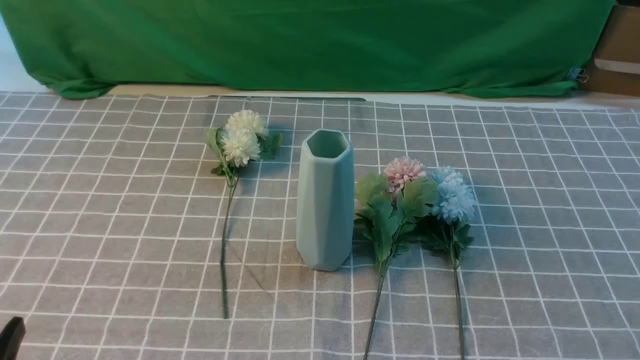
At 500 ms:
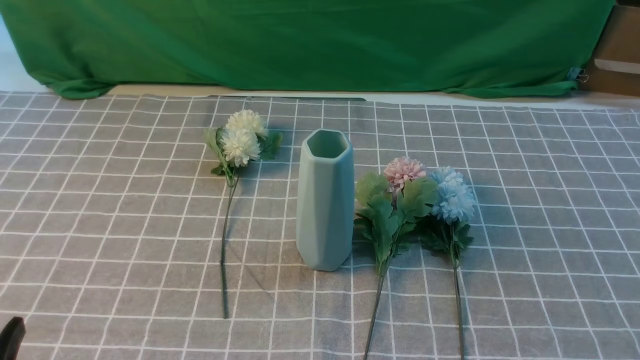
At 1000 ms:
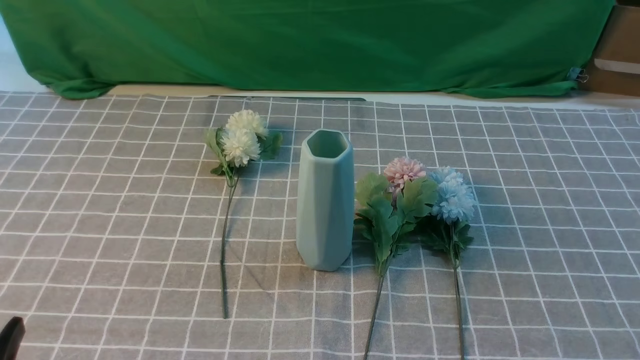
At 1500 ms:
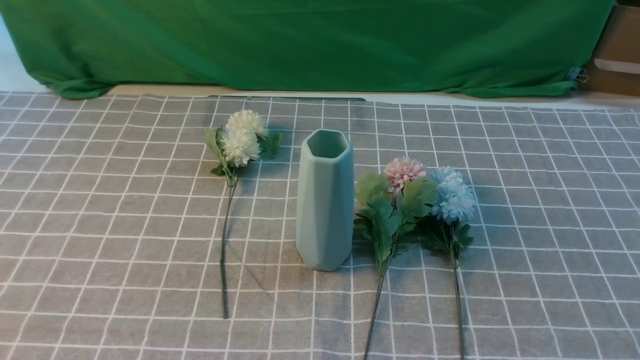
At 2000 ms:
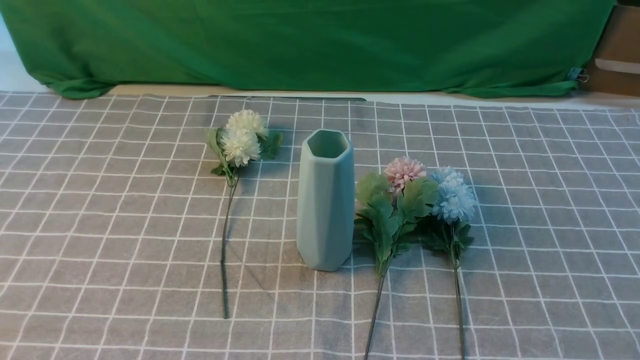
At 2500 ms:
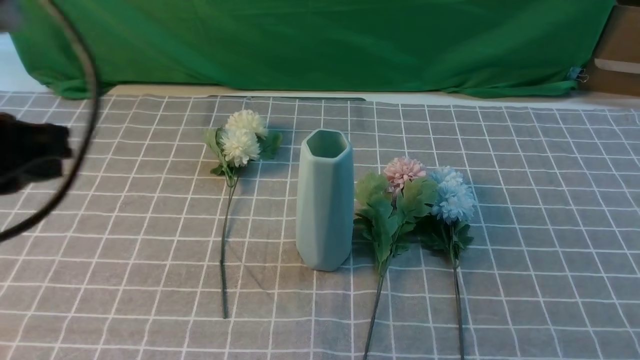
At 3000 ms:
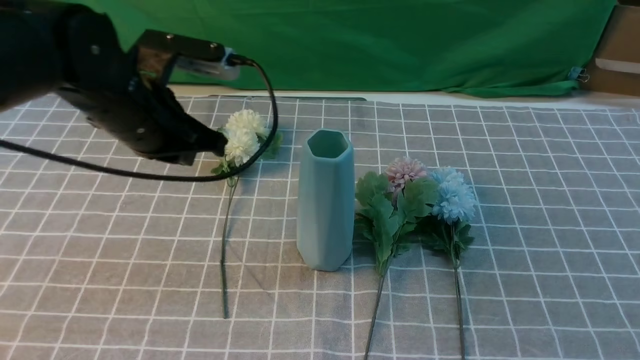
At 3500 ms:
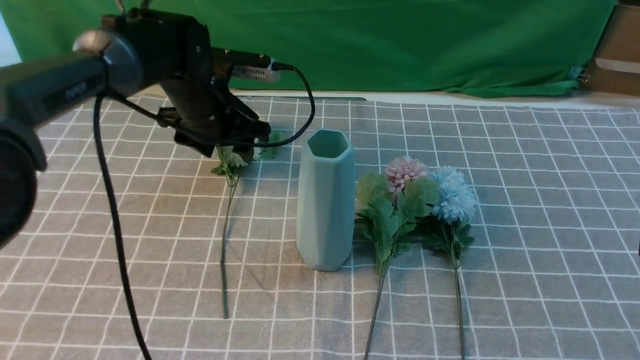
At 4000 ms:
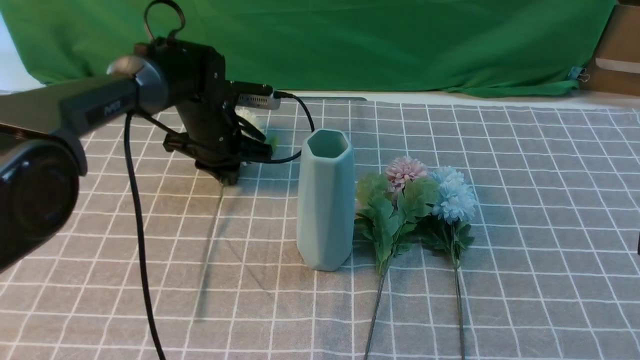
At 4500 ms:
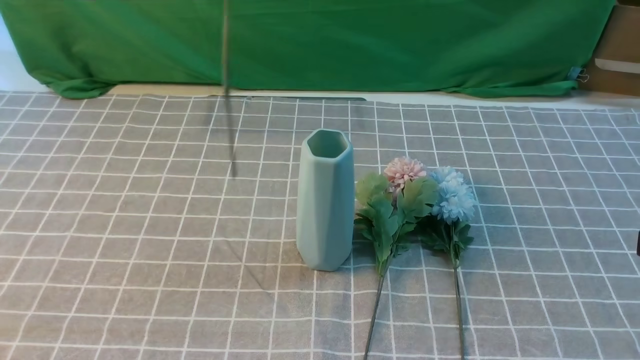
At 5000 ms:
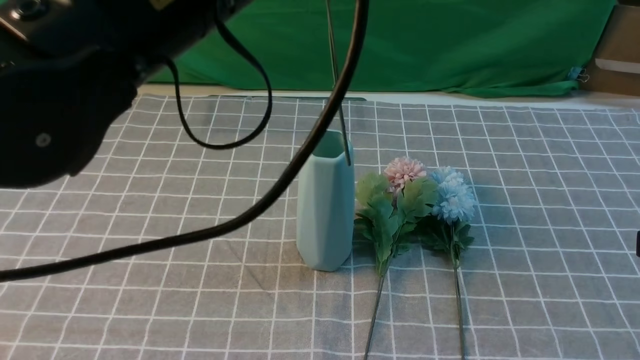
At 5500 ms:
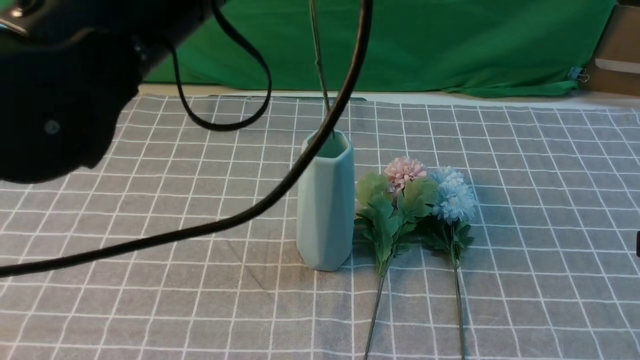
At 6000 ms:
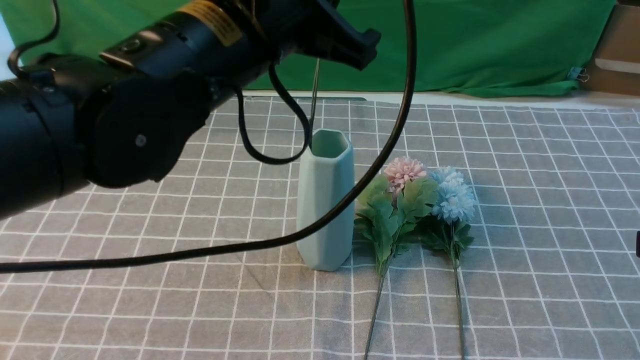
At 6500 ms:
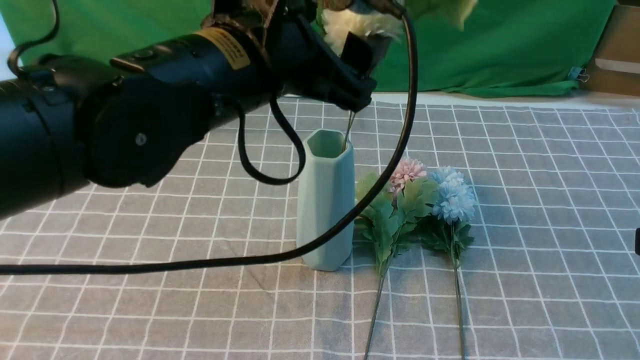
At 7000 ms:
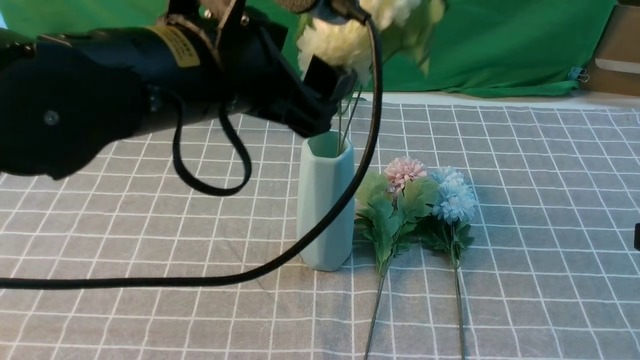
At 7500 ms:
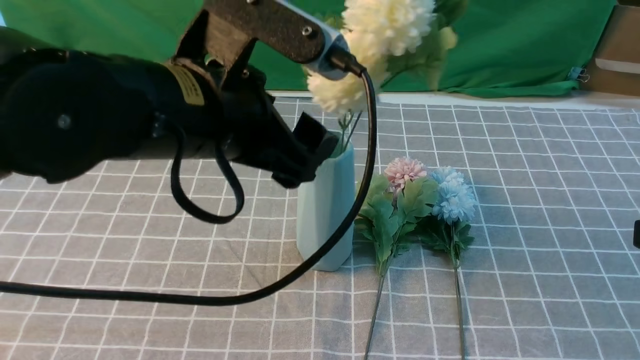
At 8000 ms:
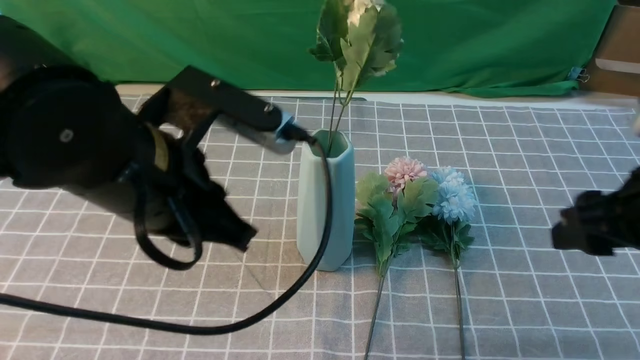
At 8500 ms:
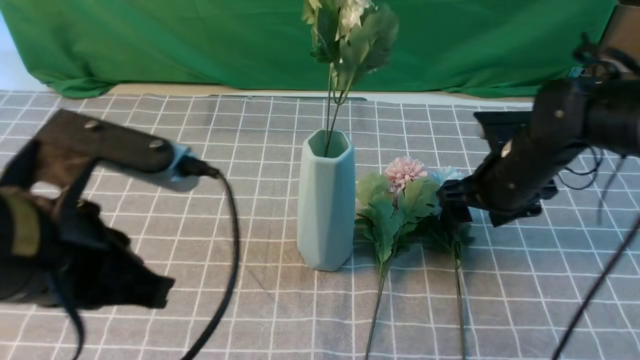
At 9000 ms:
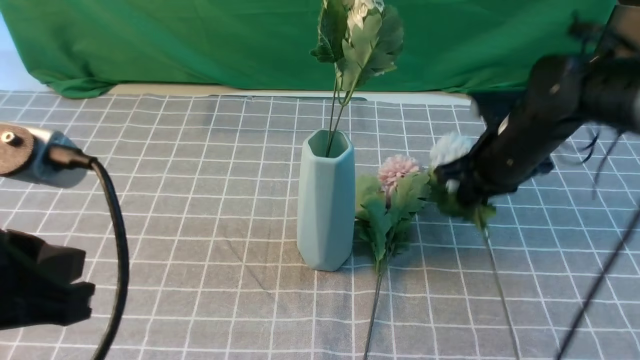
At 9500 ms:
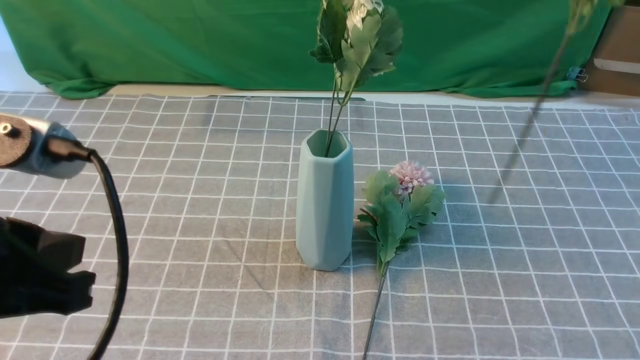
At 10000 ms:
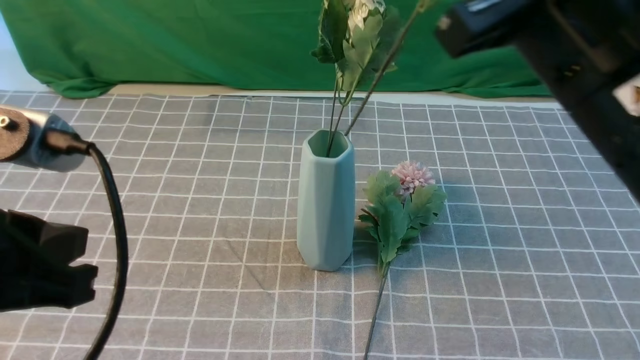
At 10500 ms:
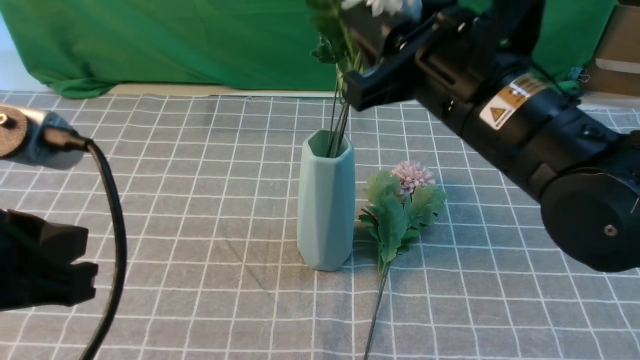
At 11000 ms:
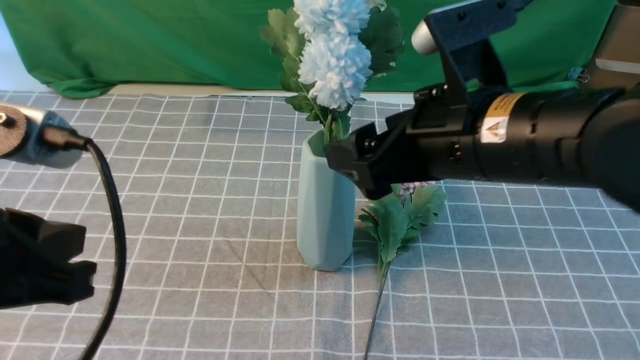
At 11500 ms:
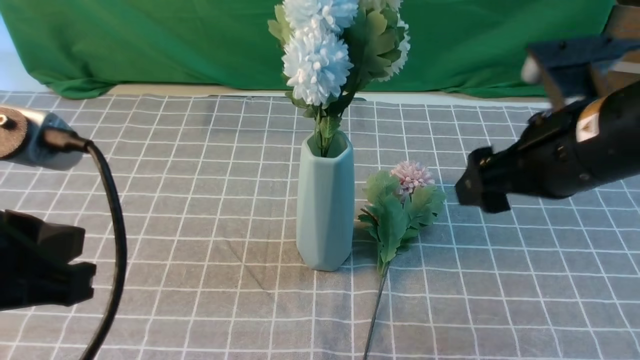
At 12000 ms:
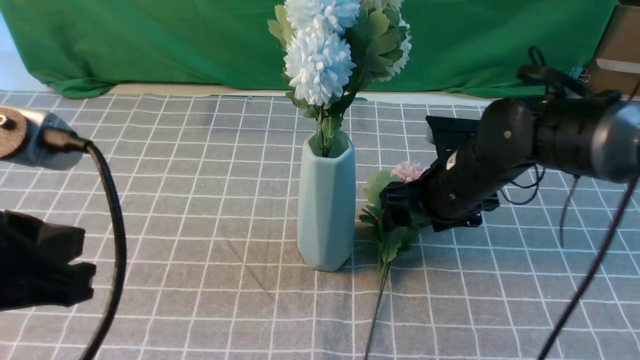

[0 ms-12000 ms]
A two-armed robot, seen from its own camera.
Task of the whole recording: insert the flowers into the vase on the table with the grey tablecloth.
Step, 0 ms to 3500 ms: use the left arm to grab a bunch of fresh flowers.
Step, 4500 ms to 7500 ms: use the left arm to insert the flowers into the vase.
Step, 8000 ms to 8500 ms: use the right arm to grab a bunch of fresh flowers.
Step, 9000 ms to 11000 ms: use the right arm to insert the flowers into the vase.
2000 ms to 4000 ms: The left gripper heads forward, covering some 40 cm, and opens, then closes once more; the right gripper moves upward and forward, approximately 15 cm.
4000 ms to 6000 ms: The left gripper goes approximately 25 cm backward and upward.
6000 ms to 8000 ms: The right gripper shifts approximately 10 cm forward, and opens its fingers. The left gripper goes roughly 10 cm downward, backward and to the left, and opens, then closes once more.
8000 ms to 10000 ms: The right gripper goes up and down, roughly 25 cm each way, reversing 2 times, and closes up. The left gripper travels backward and to the left by approximately 15 cm.
10000 ms to 12000 ms: The right gripper is displaced downward and forward by some 25 cm, and opens its fingers.

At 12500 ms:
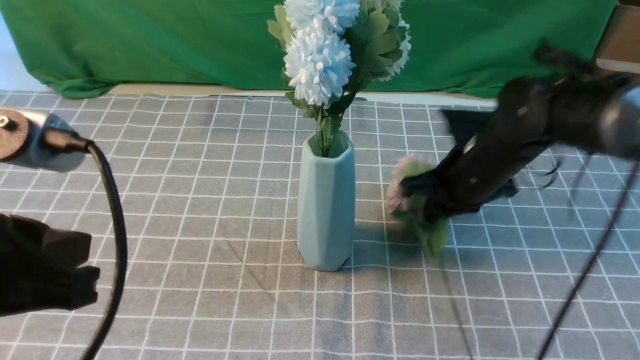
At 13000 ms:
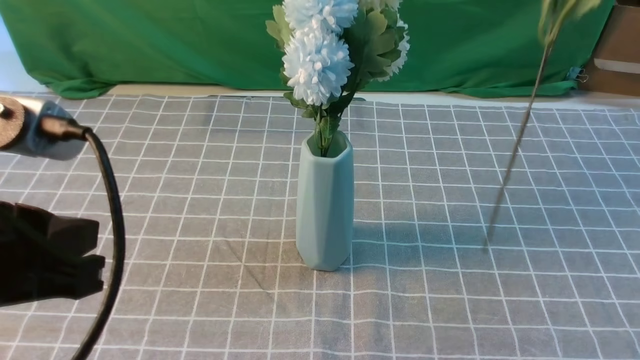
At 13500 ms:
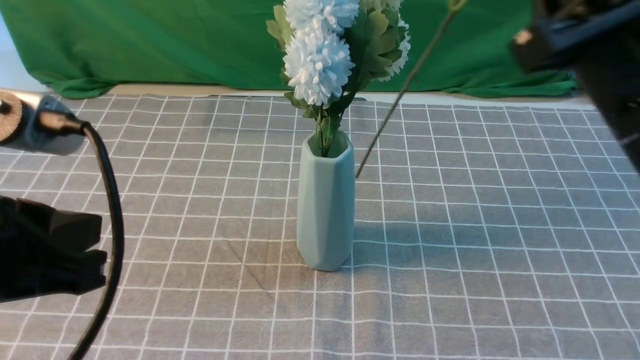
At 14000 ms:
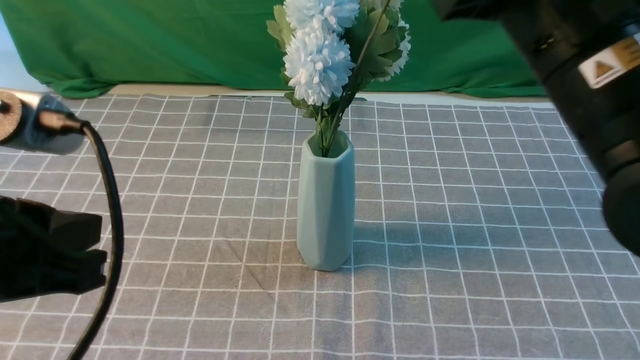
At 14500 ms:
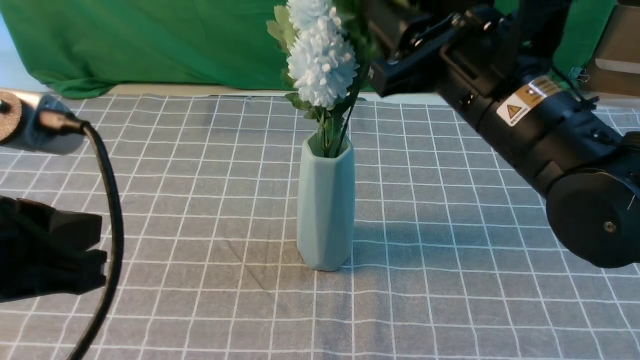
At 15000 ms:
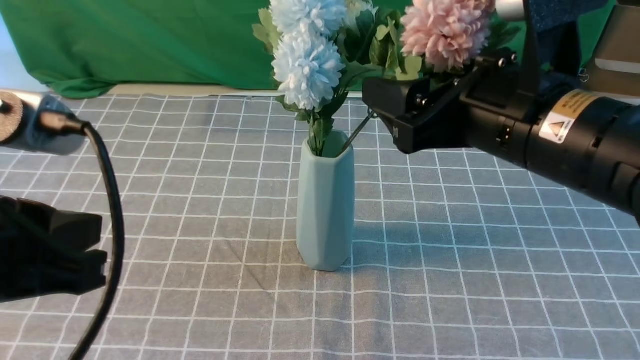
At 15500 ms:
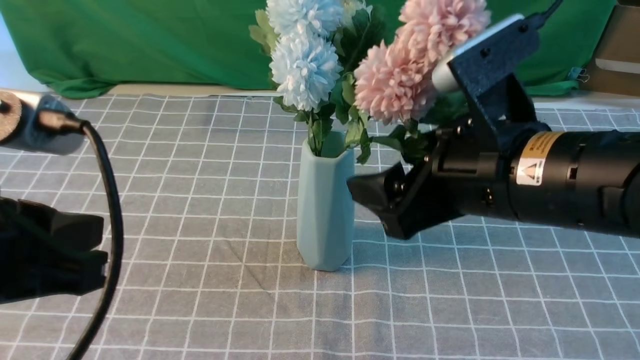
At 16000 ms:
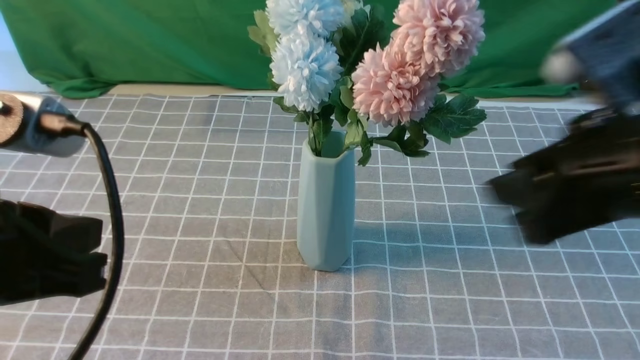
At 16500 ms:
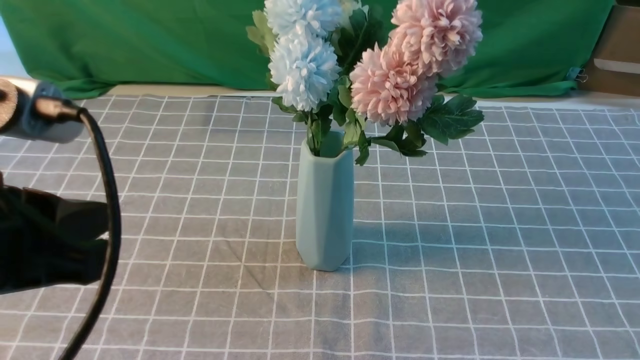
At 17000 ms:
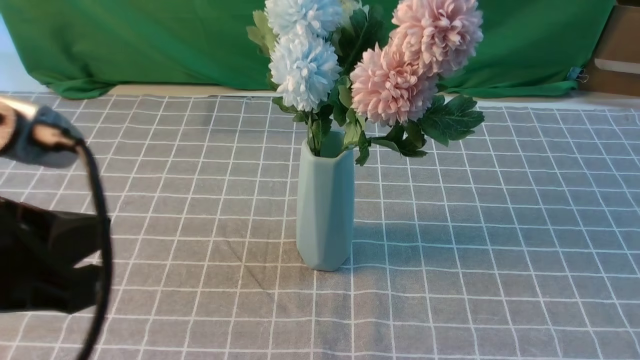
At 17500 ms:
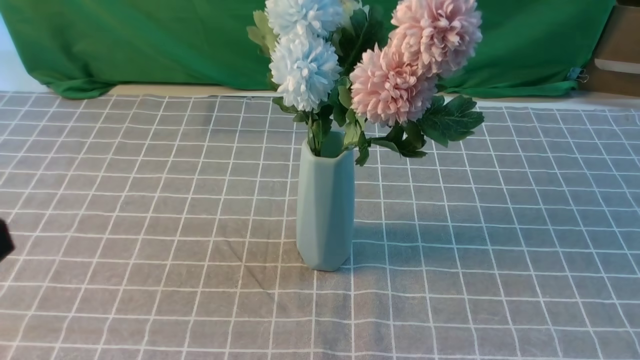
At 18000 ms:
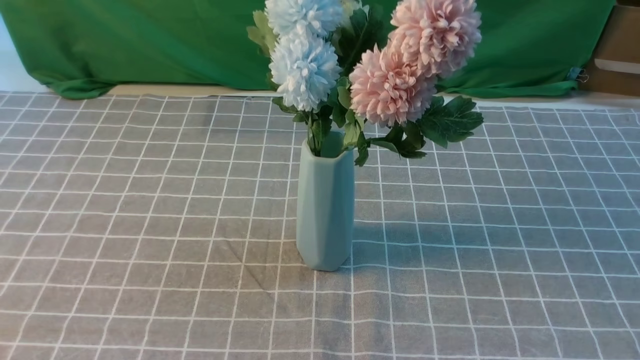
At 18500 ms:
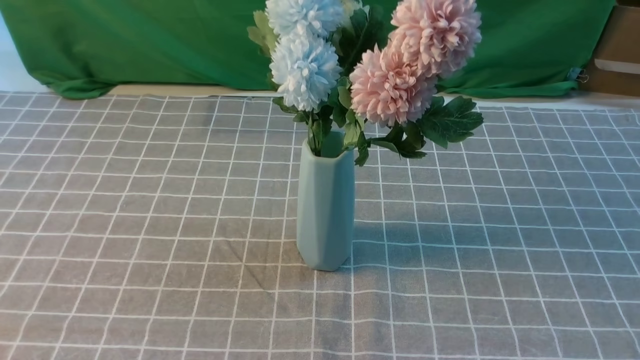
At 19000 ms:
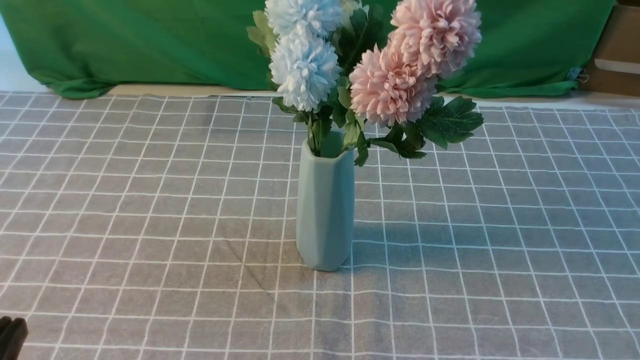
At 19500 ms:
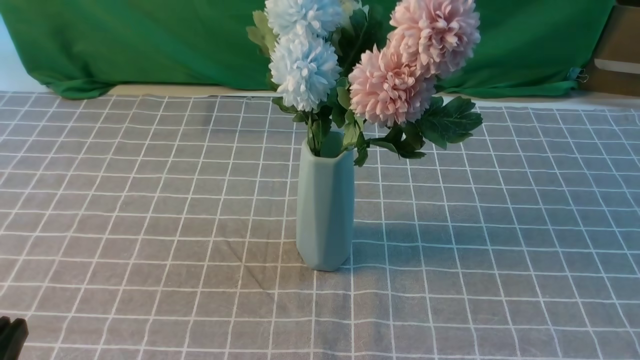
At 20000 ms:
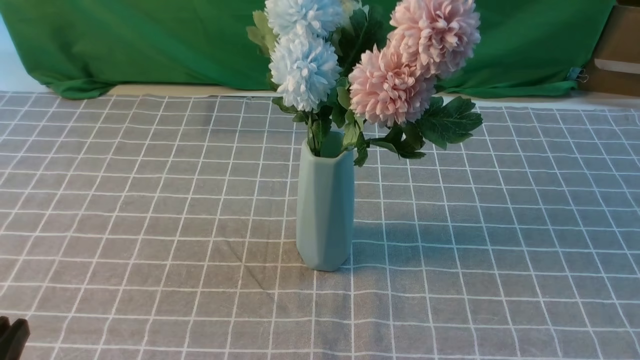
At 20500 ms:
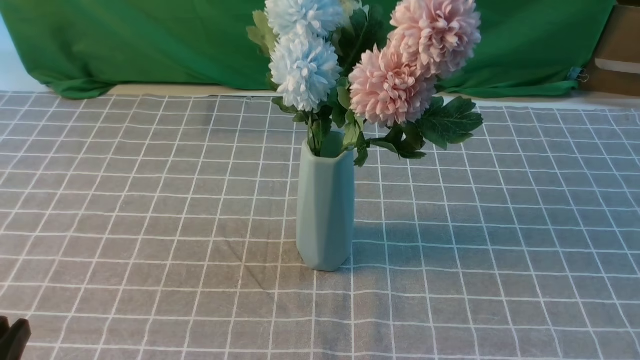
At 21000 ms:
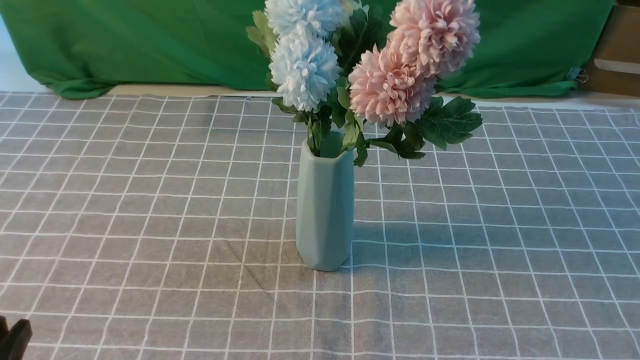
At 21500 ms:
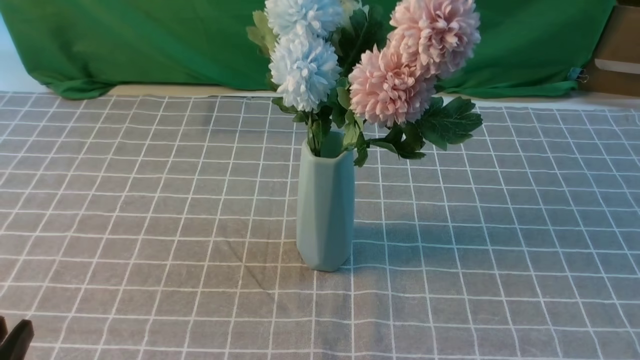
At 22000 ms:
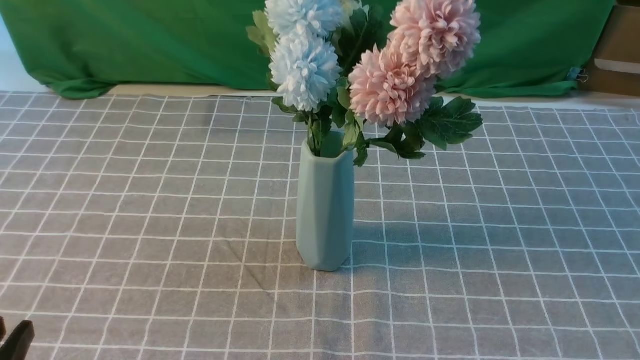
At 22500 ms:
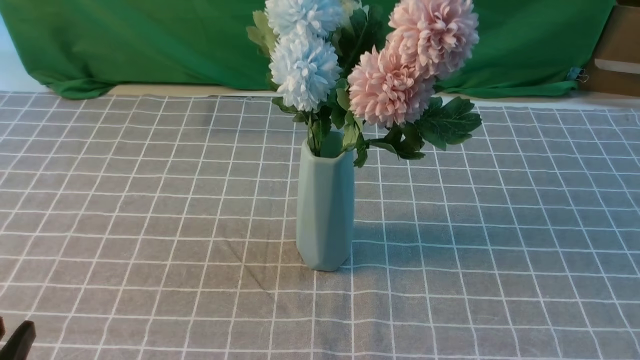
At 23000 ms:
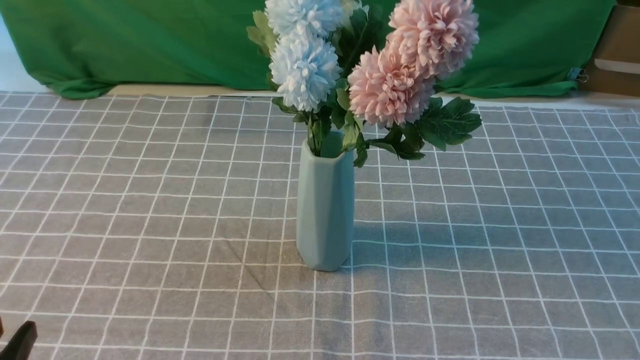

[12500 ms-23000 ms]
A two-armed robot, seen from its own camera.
Task of the whole recording: insert the flowers into the vase on the table with the grey tablecloth.
Step, 12500 ms to 15500 ms: use the right arm to insert the flowers into the vase.
12500 ms to 14500 ms: The right gripper moves backward and upward, approximately 15 cm, and opens its fingers.
14500 ms to 16500 ms: The right gripper travels backward and to the right by approximately 30 cm, and closes up.
16500 ms to 19000 ms: The left gripper moves downward, to the left and backward, roughly 20 cm, while the right gripper ends up about 5 cm from where it was.
